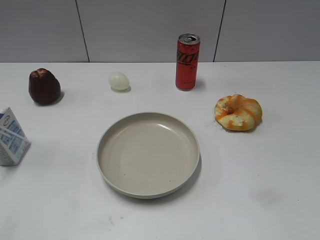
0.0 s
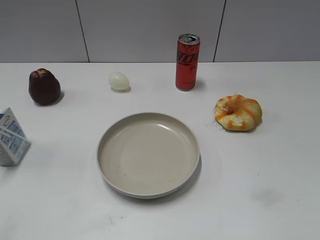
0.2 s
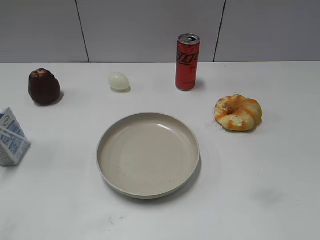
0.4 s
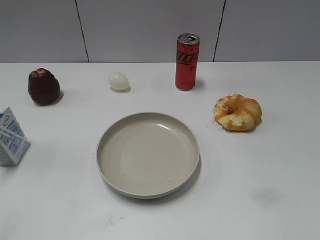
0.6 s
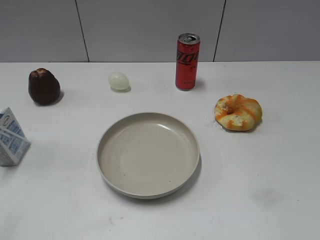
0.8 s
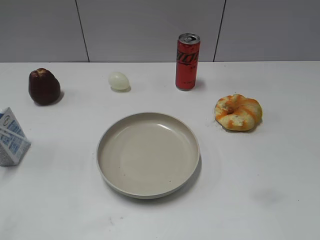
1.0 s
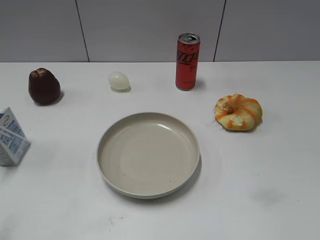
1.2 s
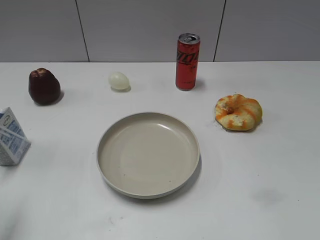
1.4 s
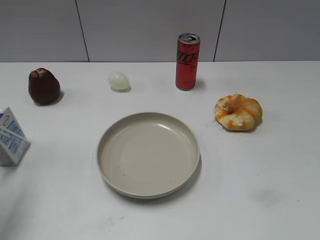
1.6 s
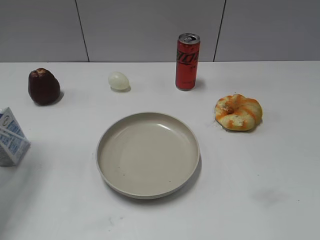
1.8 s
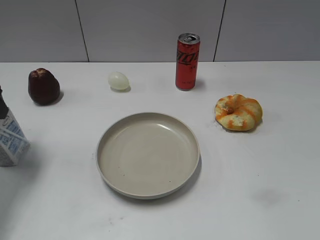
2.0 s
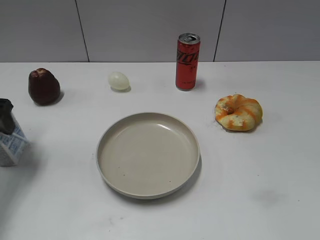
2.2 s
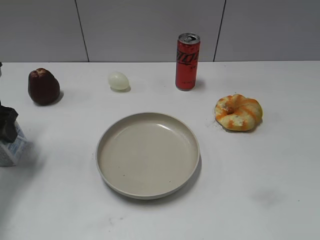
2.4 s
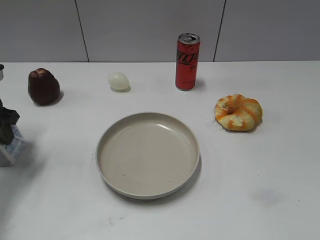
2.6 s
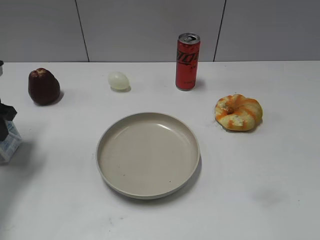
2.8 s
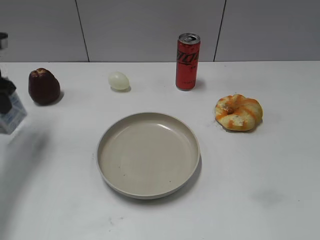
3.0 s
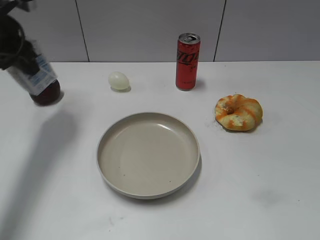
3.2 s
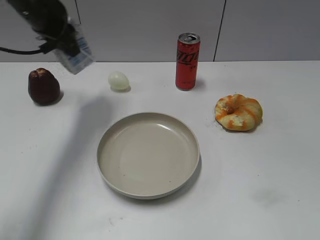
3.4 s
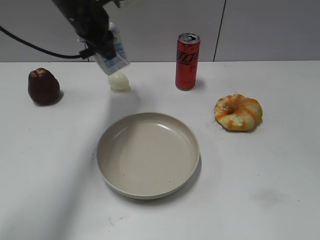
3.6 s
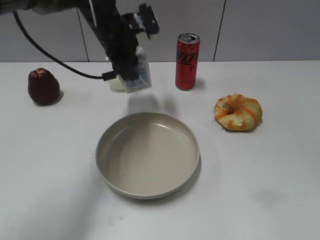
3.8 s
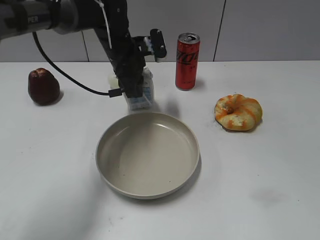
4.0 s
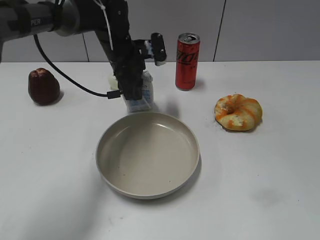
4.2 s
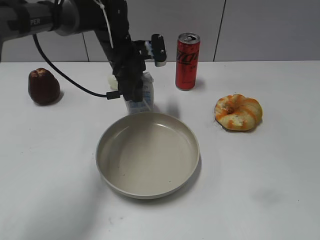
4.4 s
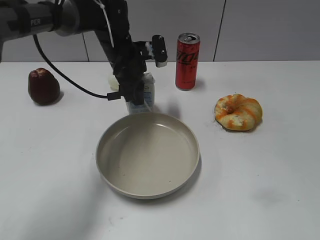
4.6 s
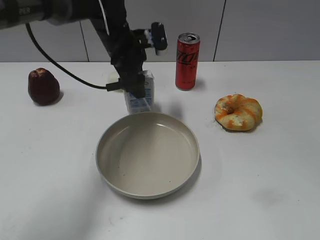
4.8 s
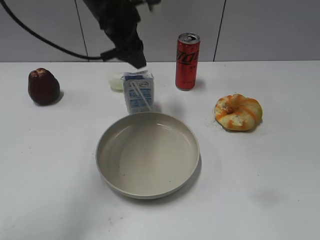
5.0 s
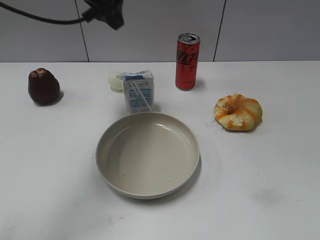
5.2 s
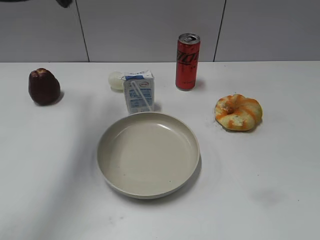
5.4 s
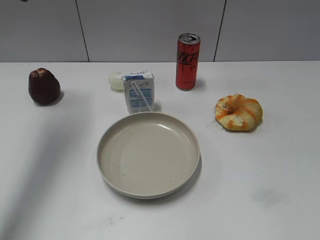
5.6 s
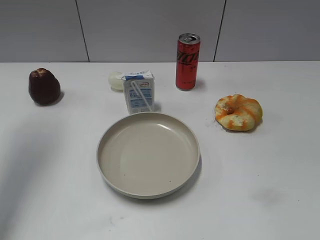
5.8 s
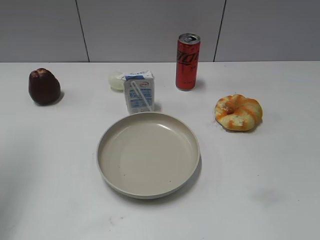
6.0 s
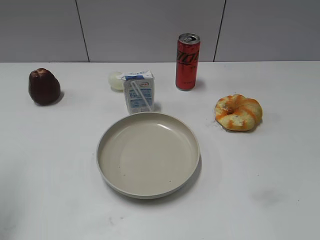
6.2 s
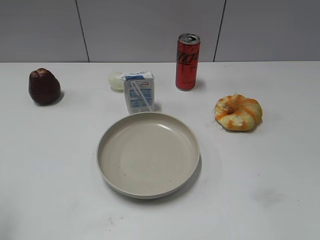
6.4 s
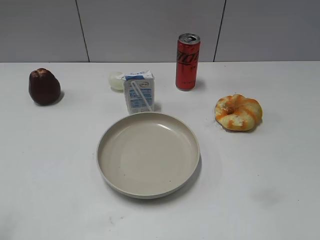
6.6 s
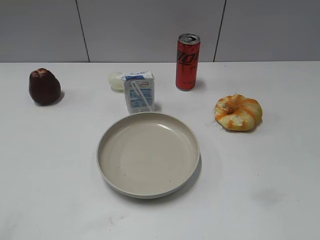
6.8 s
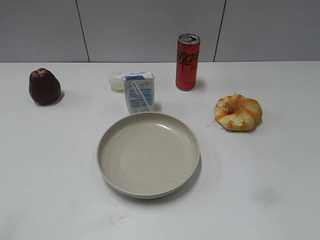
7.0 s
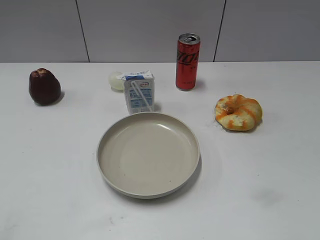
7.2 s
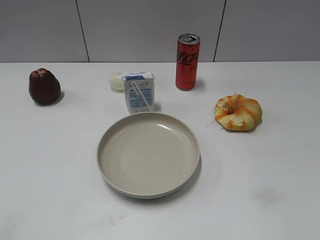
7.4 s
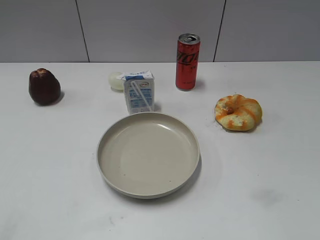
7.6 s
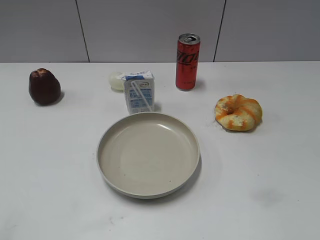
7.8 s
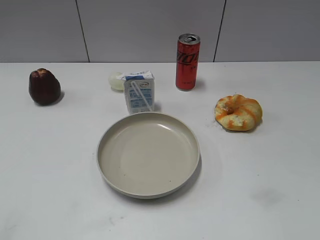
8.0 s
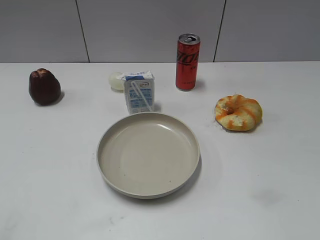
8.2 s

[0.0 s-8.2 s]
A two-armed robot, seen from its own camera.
Step, 0.8 to 2.8 s: Grasp the milk with left gripper.
Step, 3.0 to 4.8 s: Place the milk on the table with left gripper.
1.6 to 3.2 s: The left gripper moves forward and to the right, some 20 cm, and closes up.
3.2 to 5.0 s: The left gripper heads to the right, covering approximately 15 cm, and opens up.
5.0 to 6.6 s: The left gripper is displaced backward and to the left by about 40 cm.

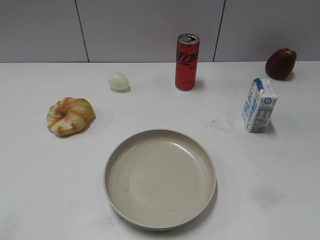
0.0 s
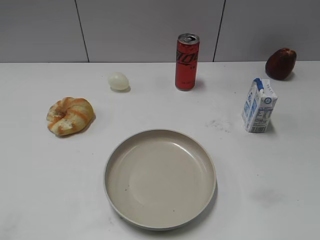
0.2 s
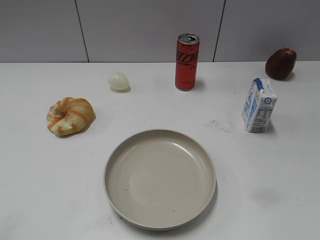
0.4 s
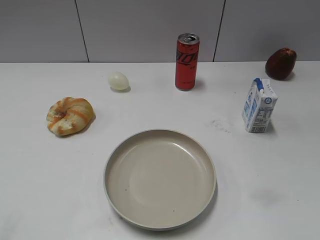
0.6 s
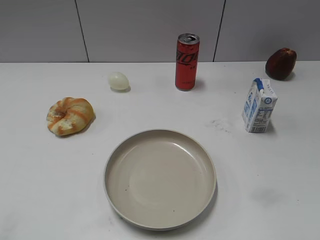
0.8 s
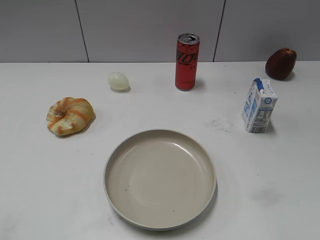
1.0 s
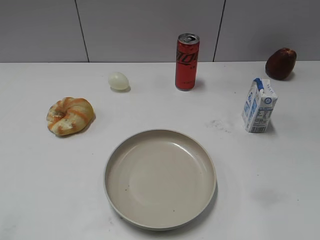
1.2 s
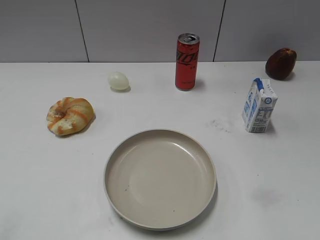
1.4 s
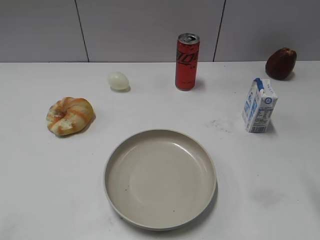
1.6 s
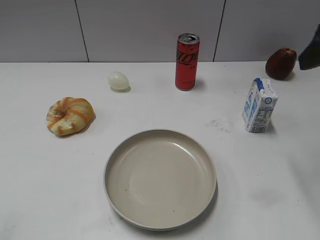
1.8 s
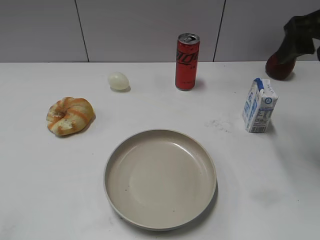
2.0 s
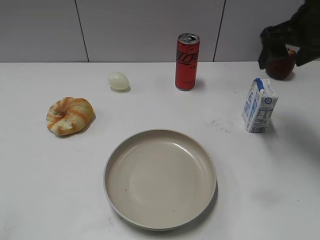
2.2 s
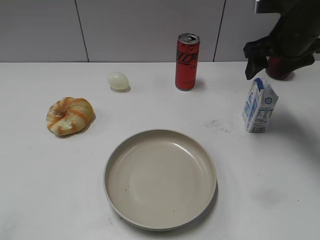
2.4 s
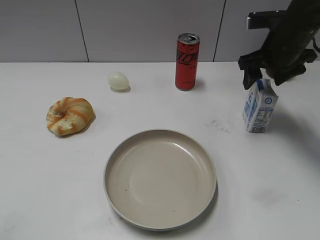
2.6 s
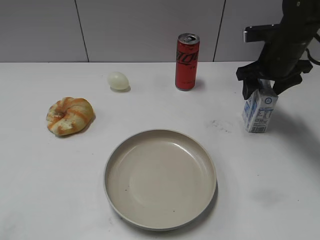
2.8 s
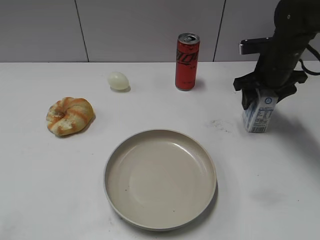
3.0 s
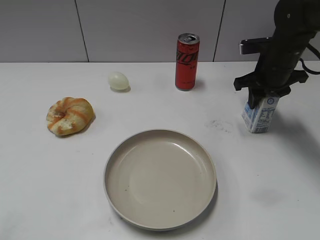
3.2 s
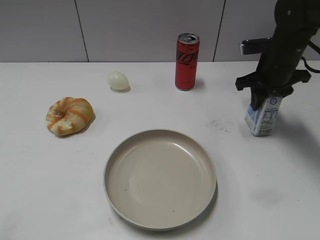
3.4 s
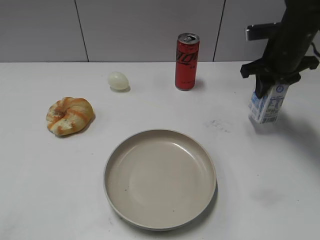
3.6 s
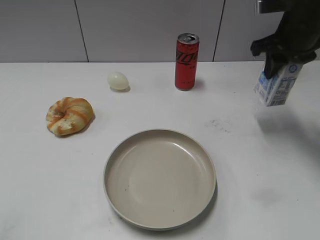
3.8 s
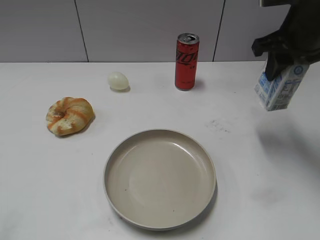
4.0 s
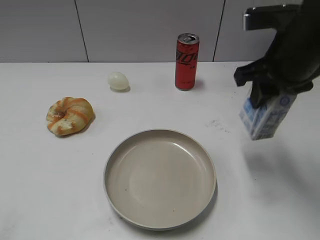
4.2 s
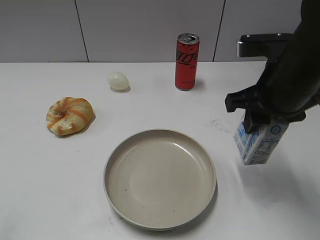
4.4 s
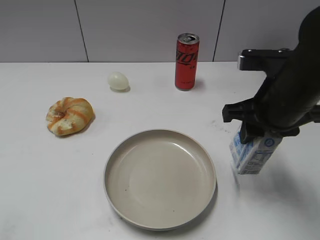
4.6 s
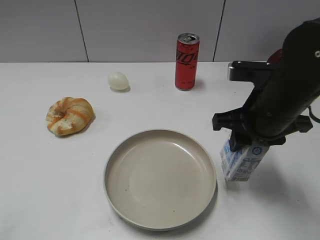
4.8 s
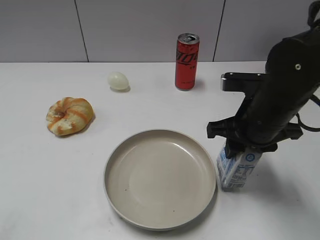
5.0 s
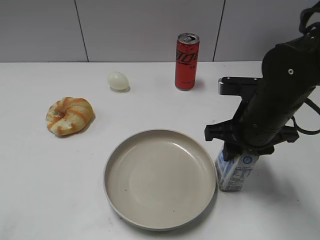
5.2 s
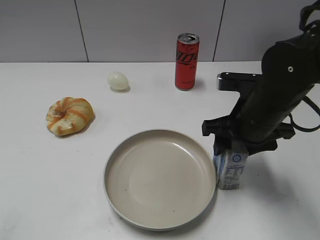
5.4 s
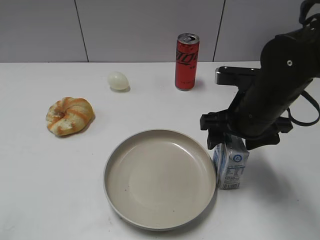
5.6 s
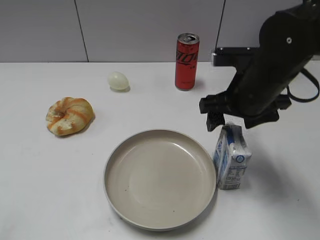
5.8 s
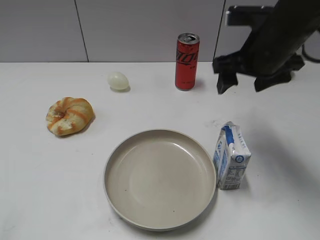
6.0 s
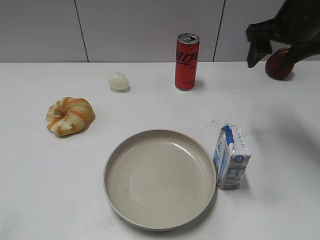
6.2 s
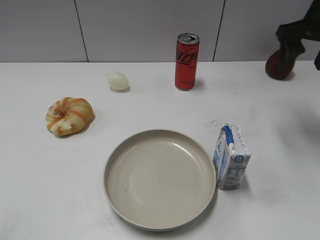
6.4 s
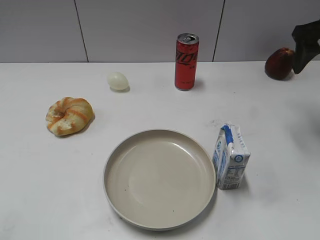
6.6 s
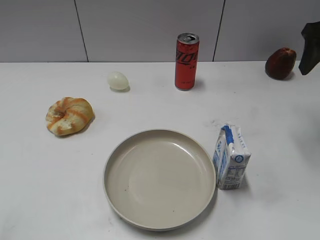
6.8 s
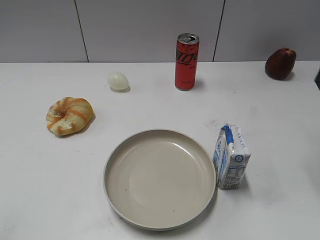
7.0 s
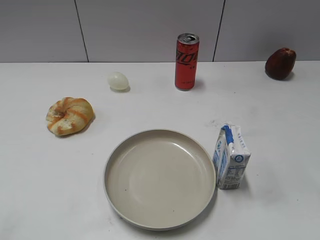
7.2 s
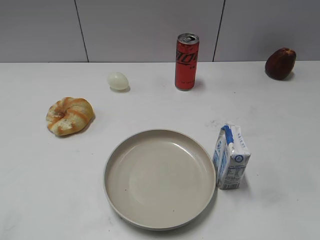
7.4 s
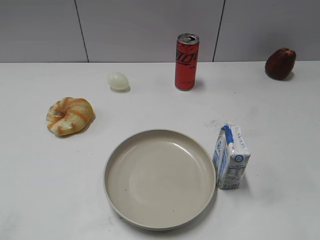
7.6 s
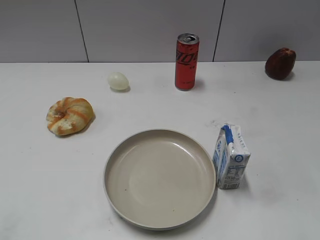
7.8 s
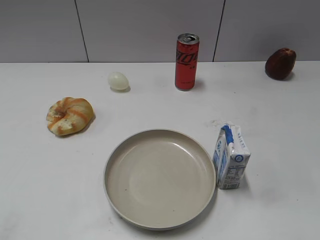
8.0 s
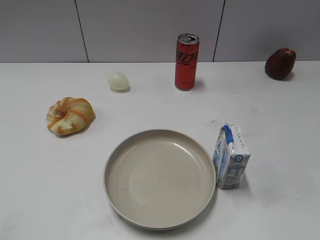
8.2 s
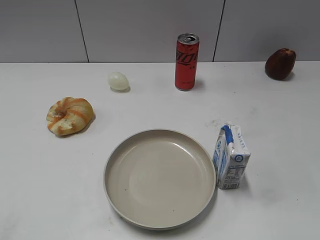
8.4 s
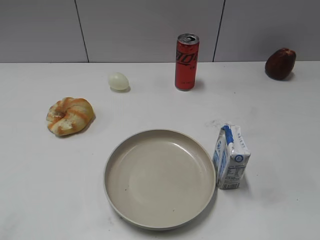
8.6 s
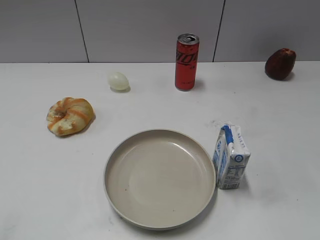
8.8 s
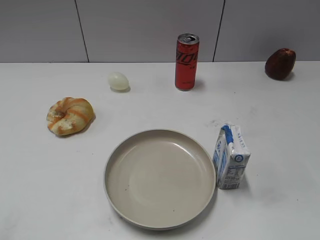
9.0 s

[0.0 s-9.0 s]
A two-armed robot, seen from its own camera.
Step, 0.8 to 3.0 s: Grasp the milk with right gripper.
Step, 3.4 to 5.4 s: Place the milk on the table with right gripper.
1.6 to 3.0 s: The right gripper moves forward and downward, about 30 cm.
3.0 to 4.4 s: The right gripper shifts roughly 15 cm backward and upward, and closes its fingers.
4.4 to 6.0 s: The right gripper moves forward, approximately 5 cm, travels downward and back again, some 5 cm each way, and opens.
6.0 to 7.6 s: The right gripper travels backward and to the right by about 25 cm.
